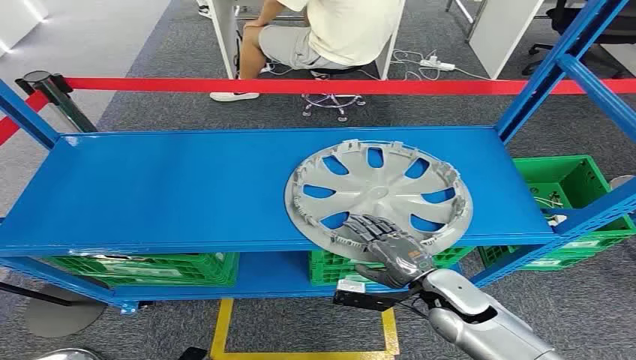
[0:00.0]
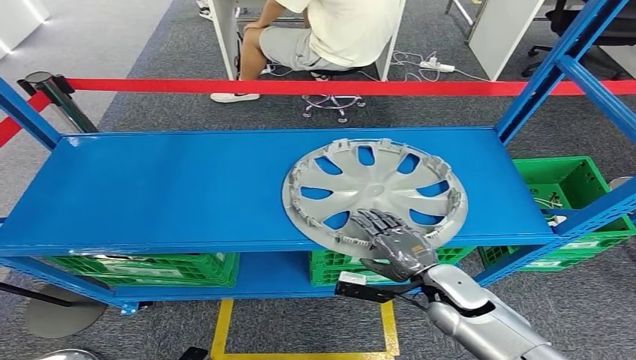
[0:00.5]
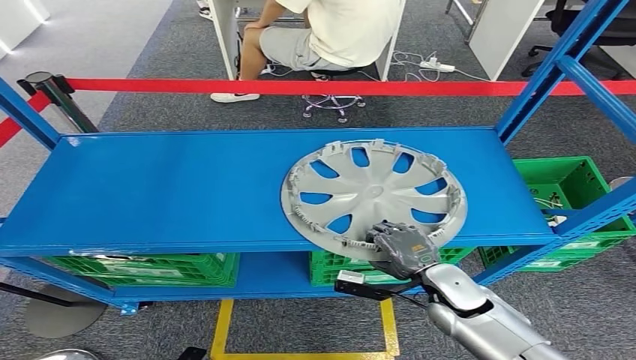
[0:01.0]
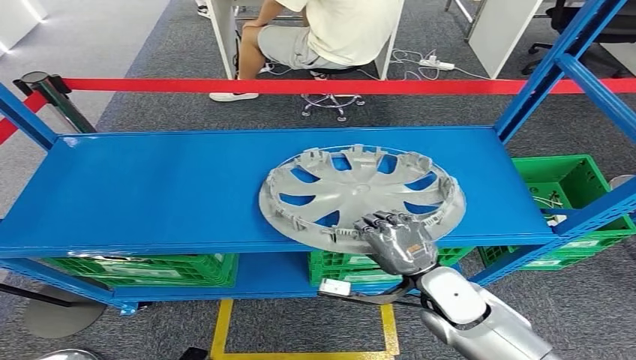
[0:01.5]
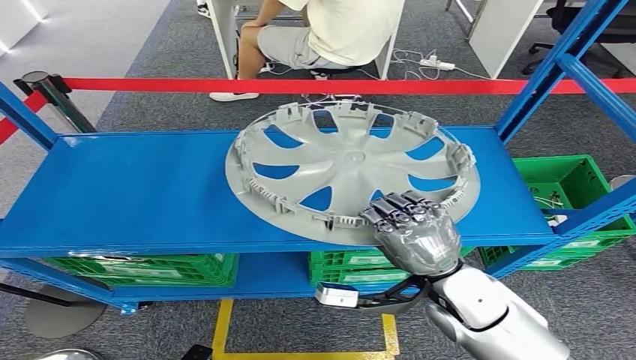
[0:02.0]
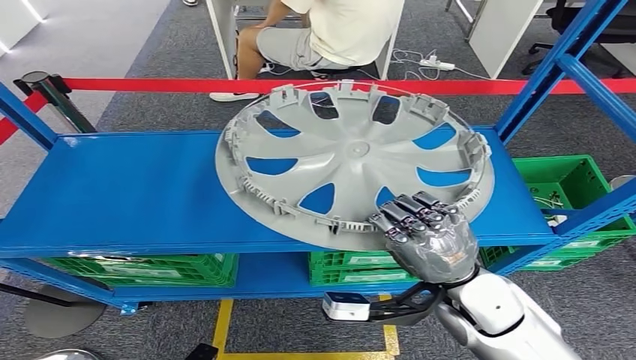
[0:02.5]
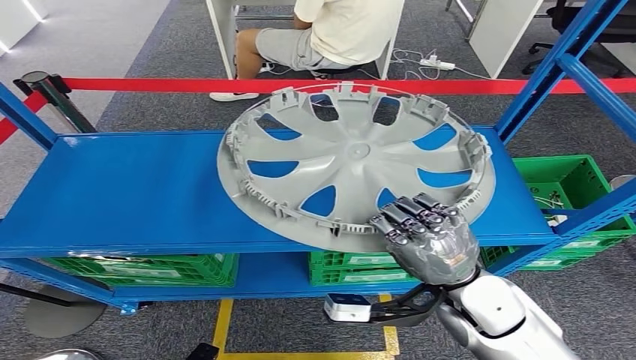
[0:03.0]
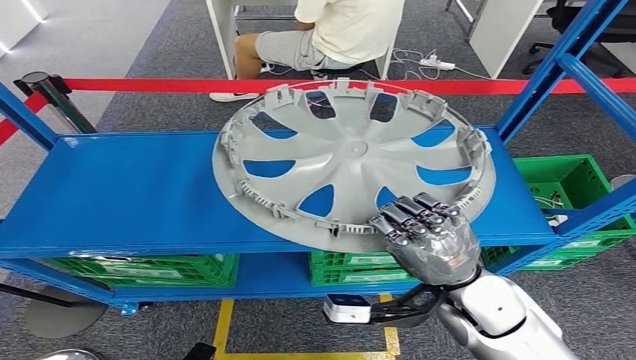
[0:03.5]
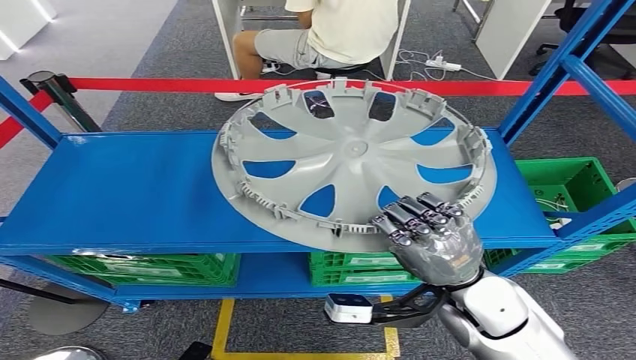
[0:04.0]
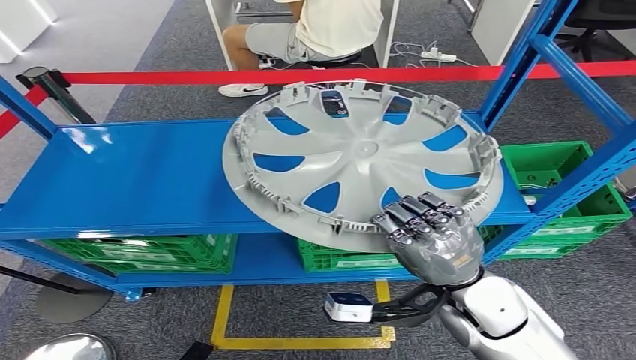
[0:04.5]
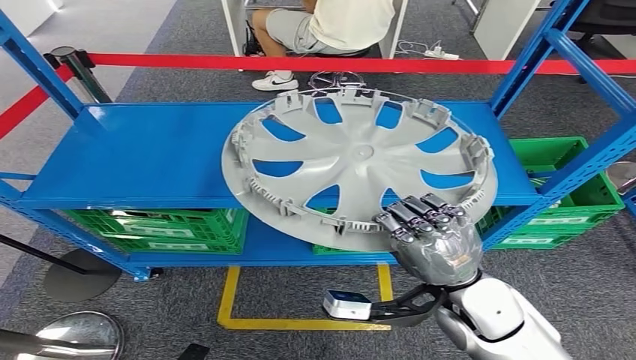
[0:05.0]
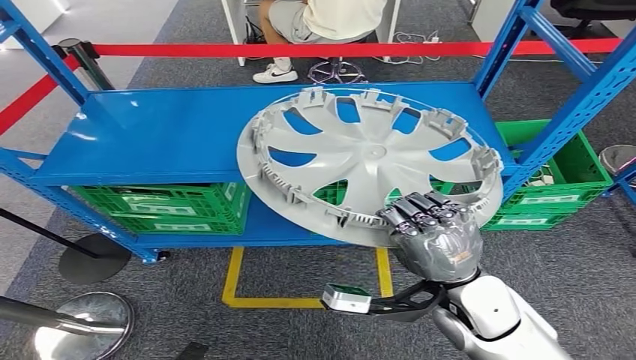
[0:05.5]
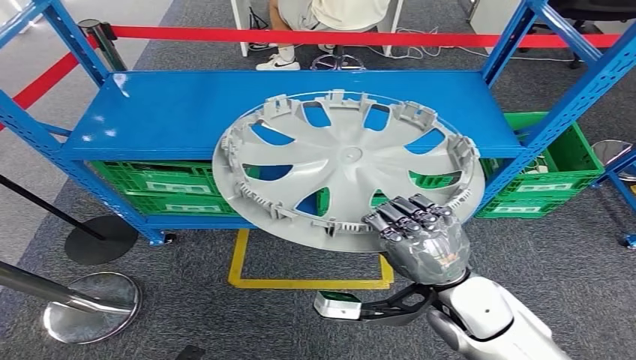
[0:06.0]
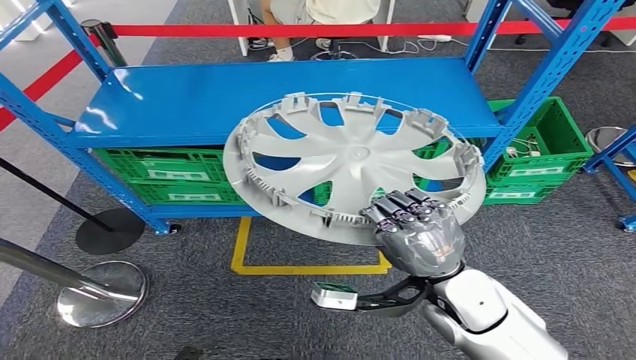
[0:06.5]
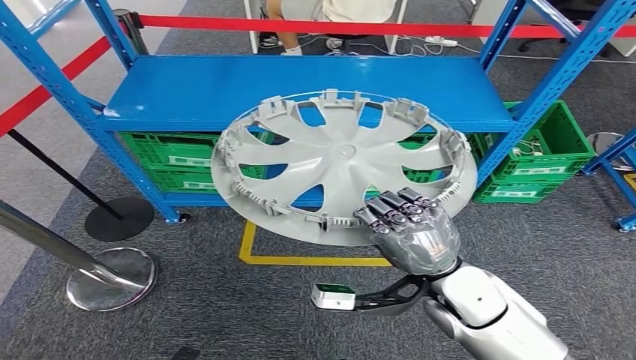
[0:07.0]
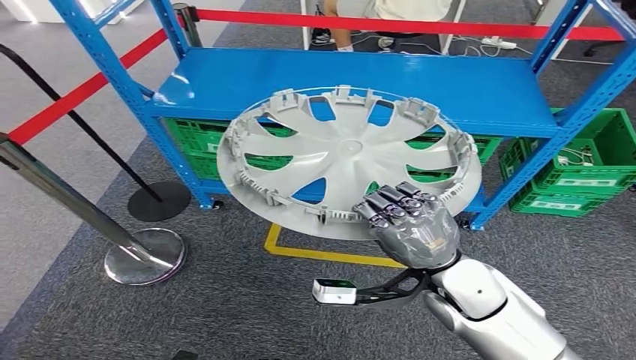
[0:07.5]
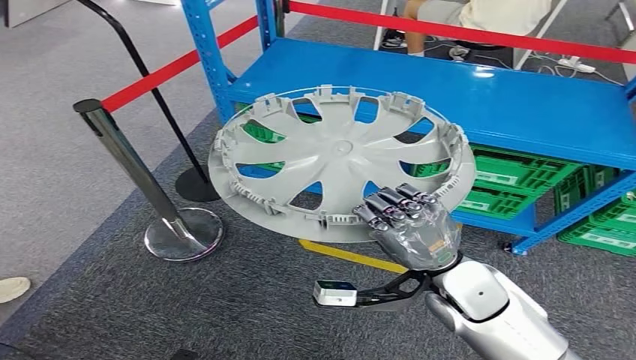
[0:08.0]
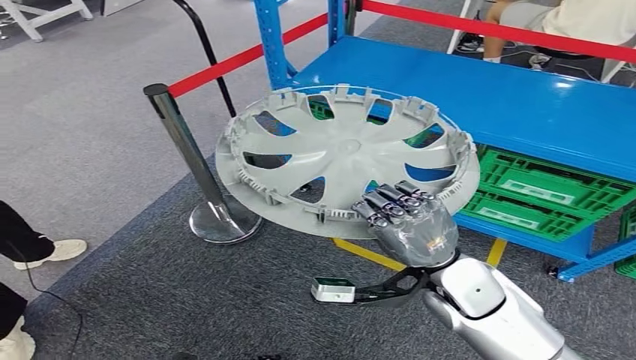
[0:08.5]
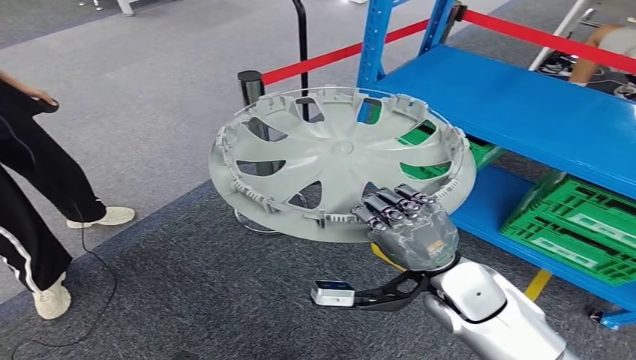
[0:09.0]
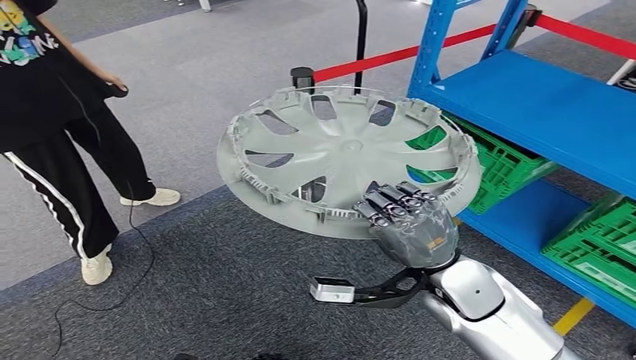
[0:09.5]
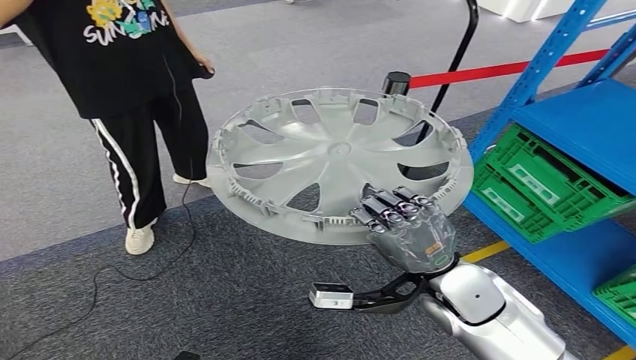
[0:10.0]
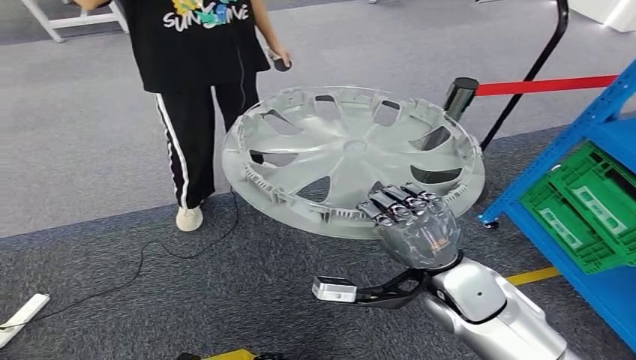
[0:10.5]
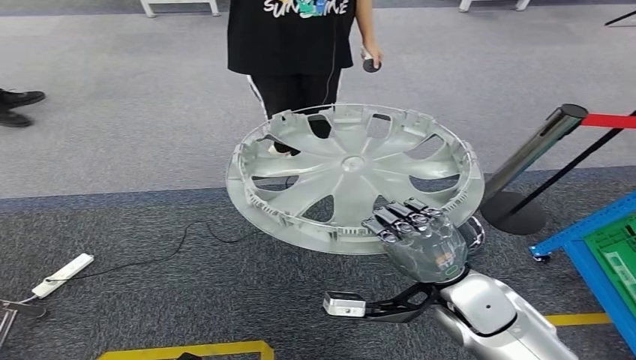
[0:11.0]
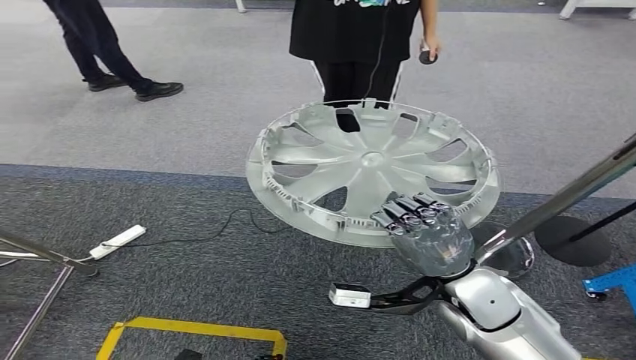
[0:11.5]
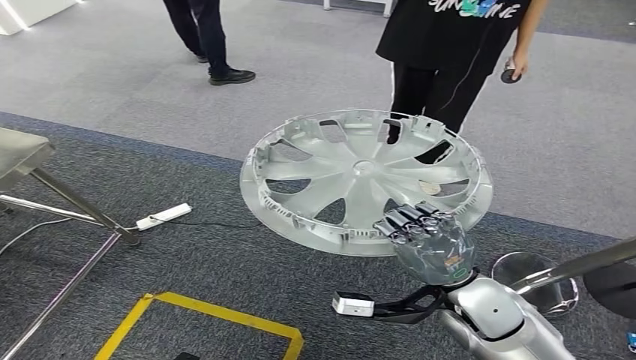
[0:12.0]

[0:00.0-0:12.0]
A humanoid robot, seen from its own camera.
Step, 0:00.0 to 0:05.0: Pick up the small component from the shelf.

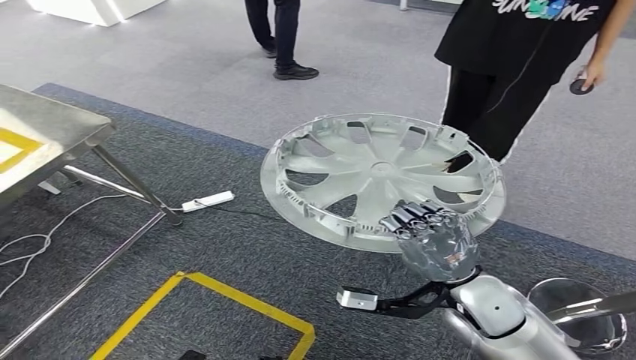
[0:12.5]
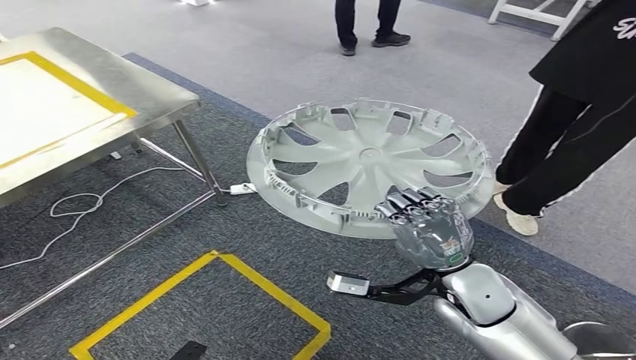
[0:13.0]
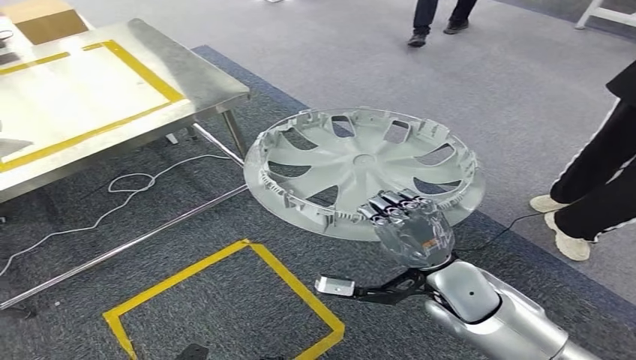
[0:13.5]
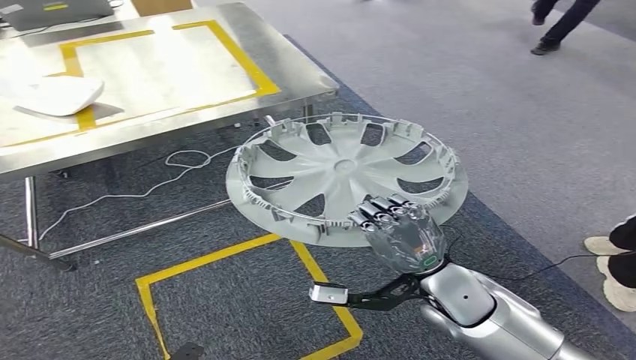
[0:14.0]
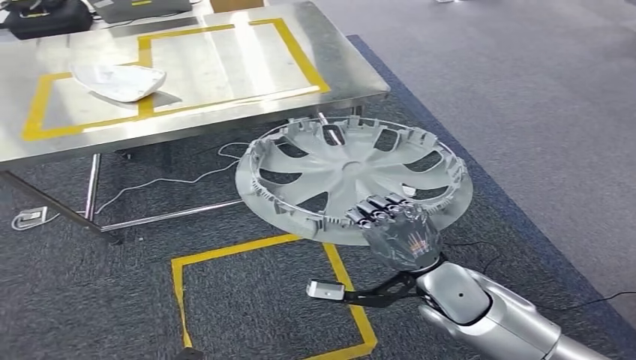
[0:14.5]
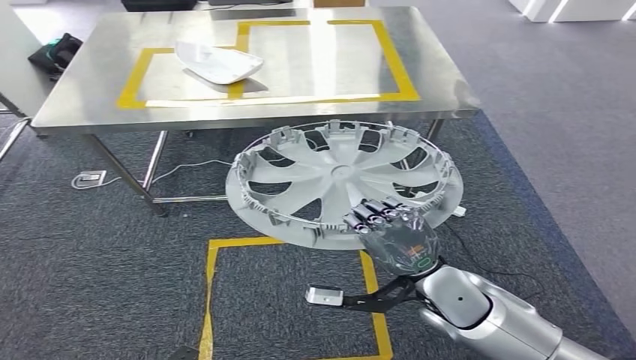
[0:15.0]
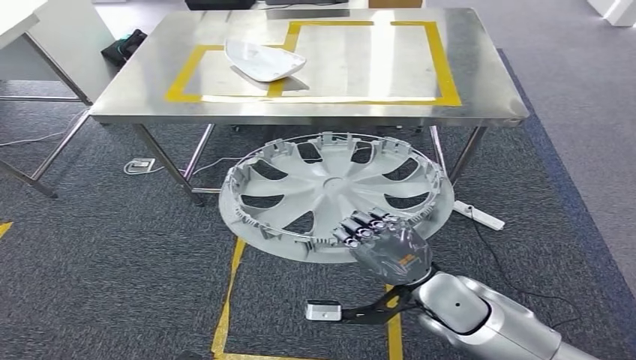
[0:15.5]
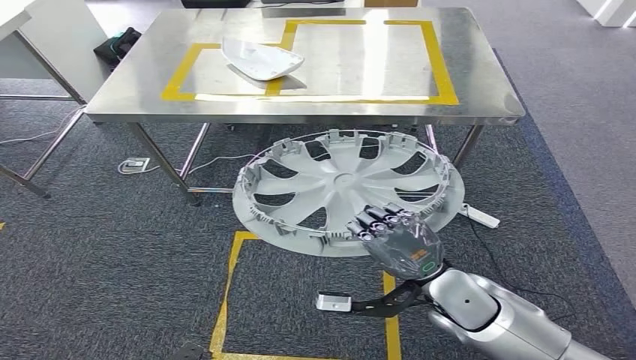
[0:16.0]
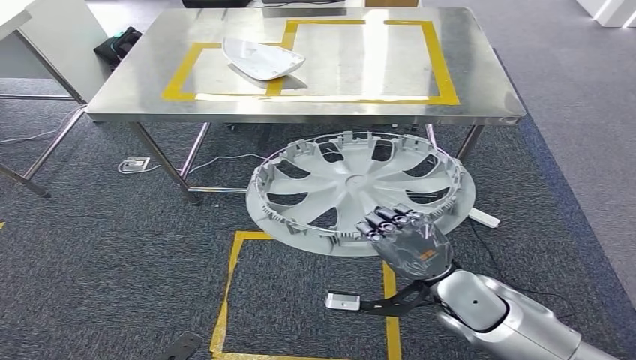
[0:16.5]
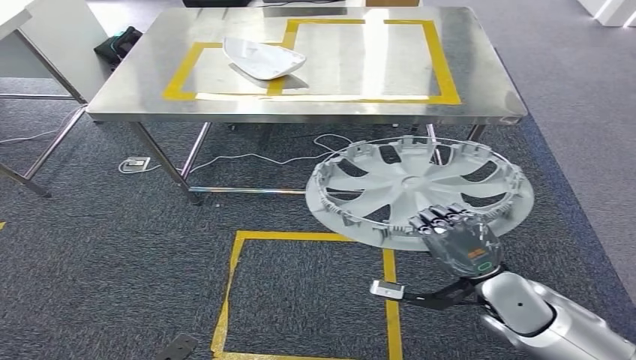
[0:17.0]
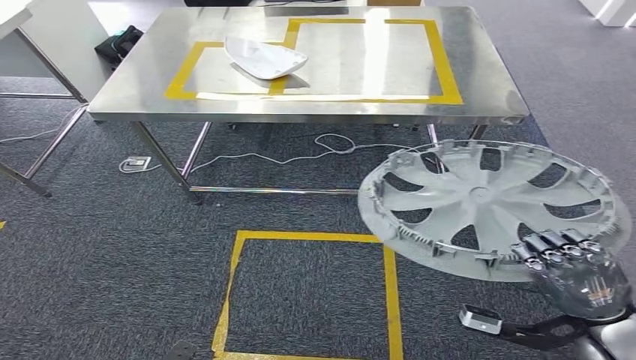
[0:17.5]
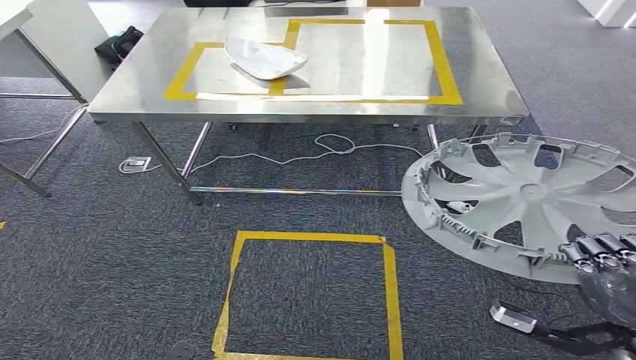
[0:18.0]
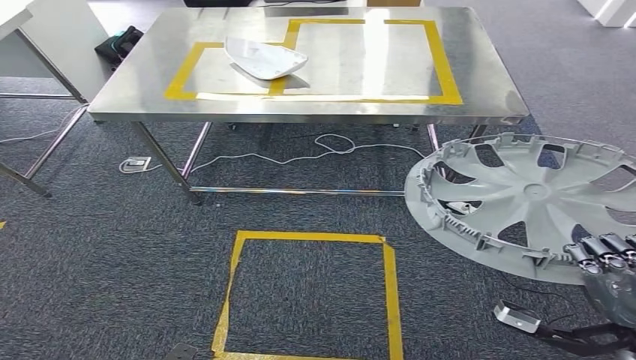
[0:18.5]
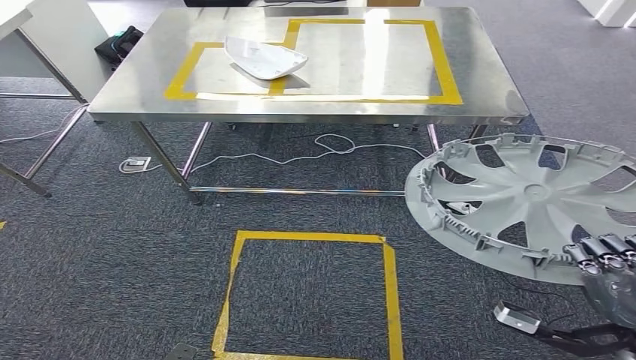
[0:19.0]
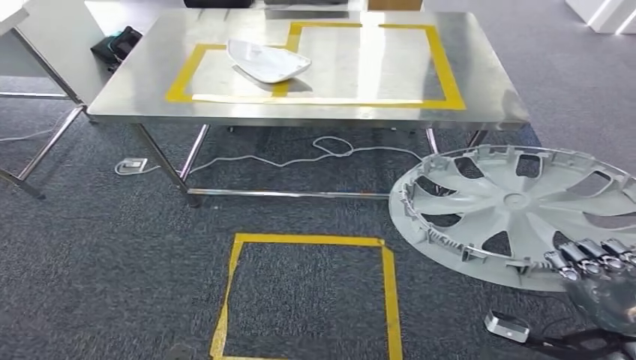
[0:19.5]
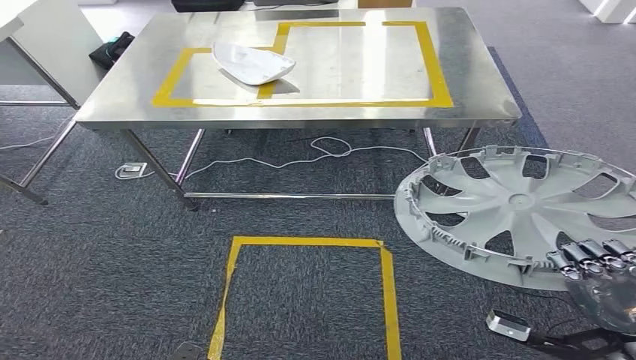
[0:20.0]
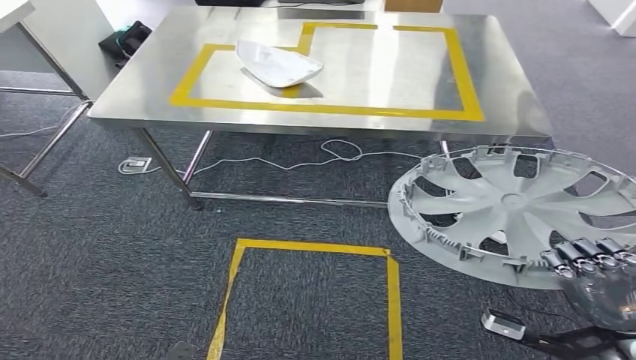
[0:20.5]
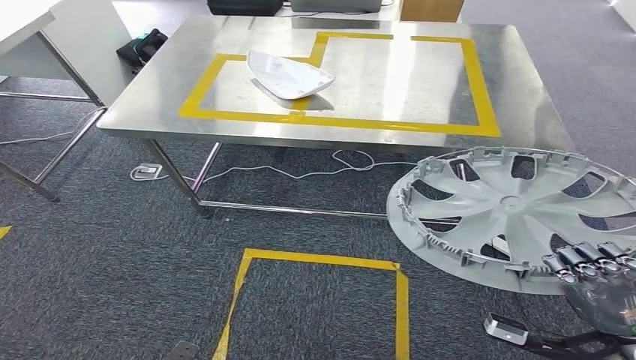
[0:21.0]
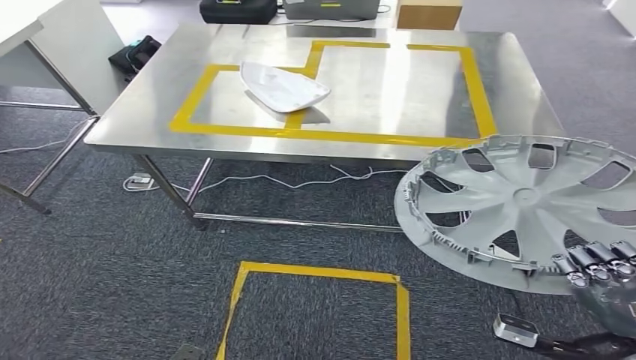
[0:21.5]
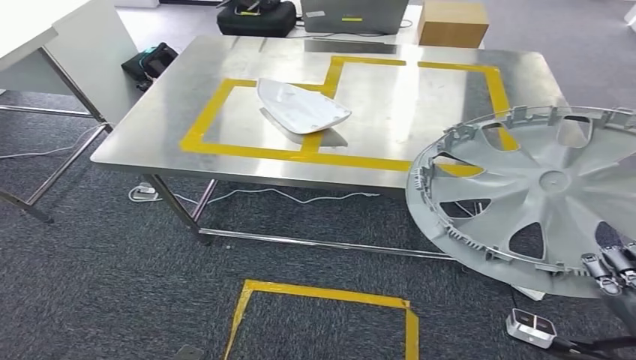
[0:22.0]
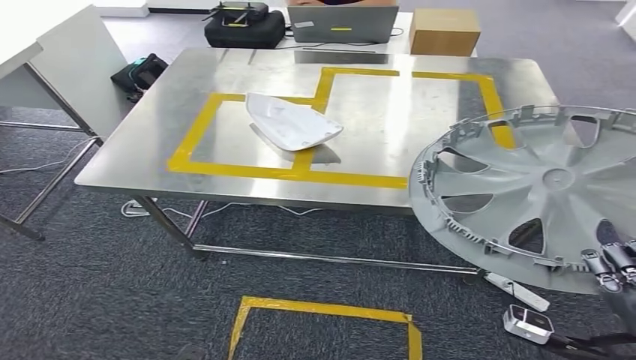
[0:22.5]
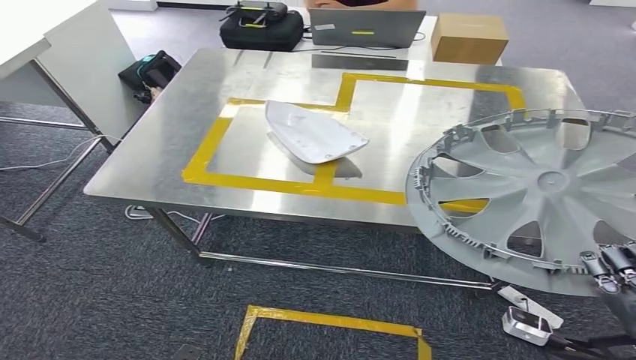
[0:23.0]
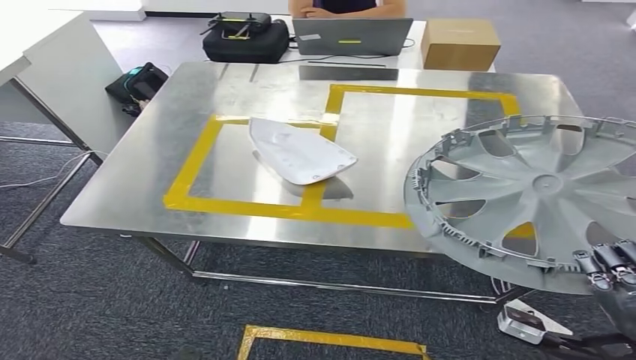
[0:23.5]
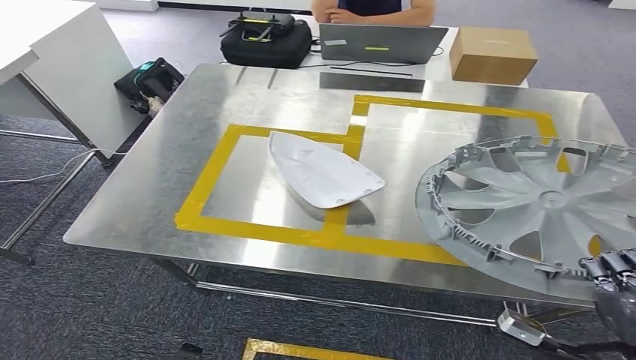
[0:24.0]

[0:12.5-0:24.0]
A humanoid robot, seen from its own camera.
Step, 0:12.5 to 0:15.5: Move the small component to the workbench.
